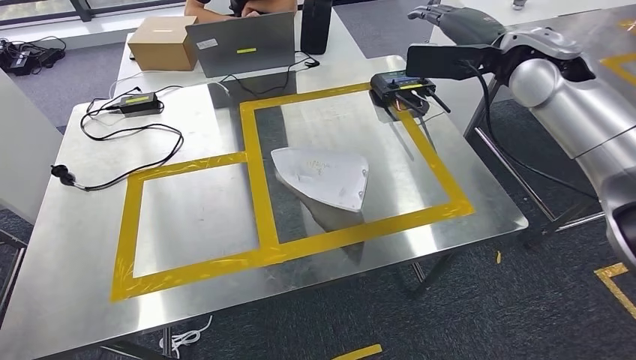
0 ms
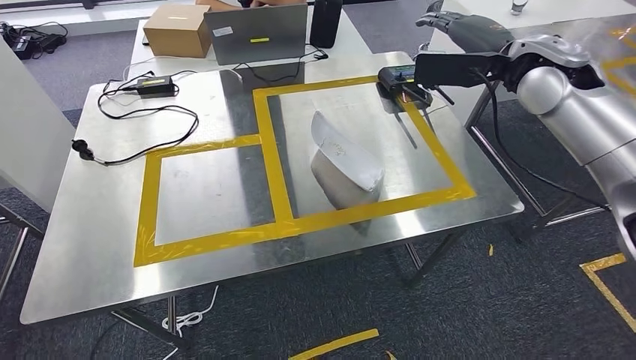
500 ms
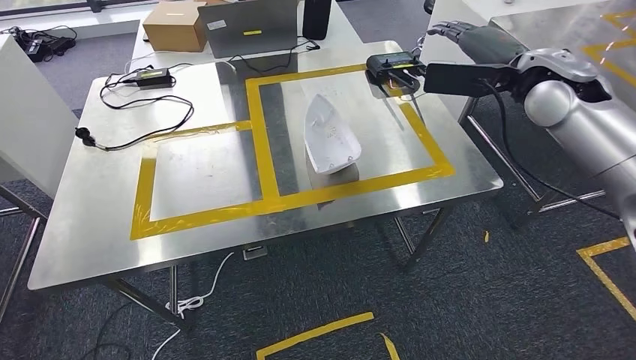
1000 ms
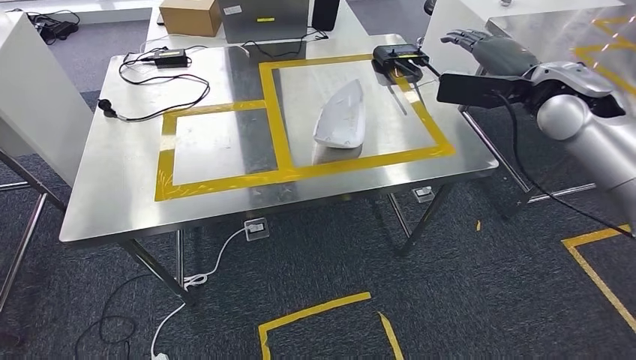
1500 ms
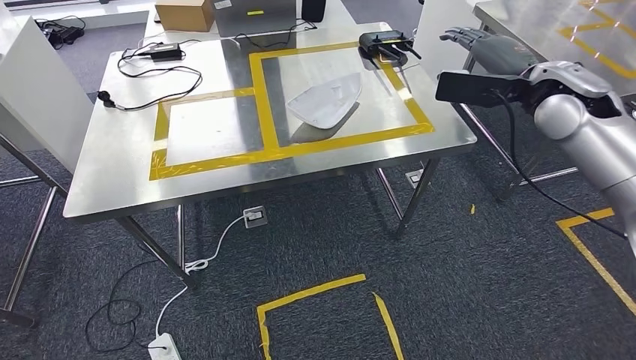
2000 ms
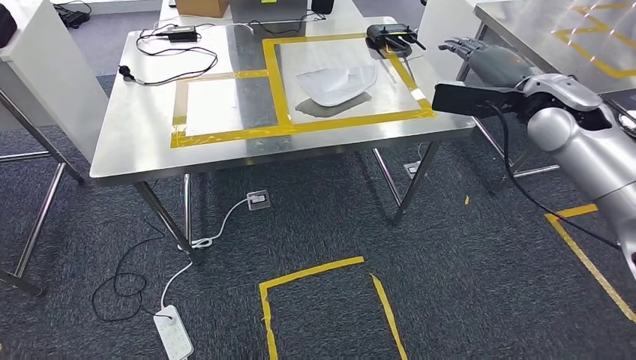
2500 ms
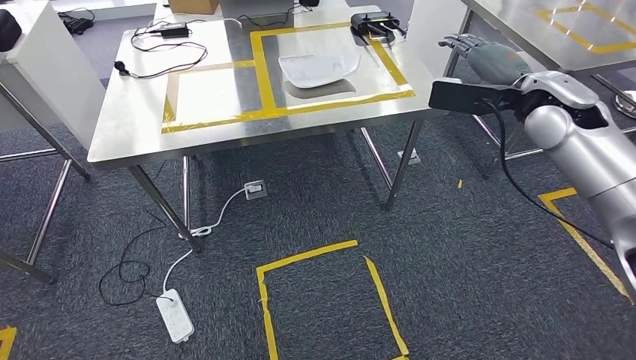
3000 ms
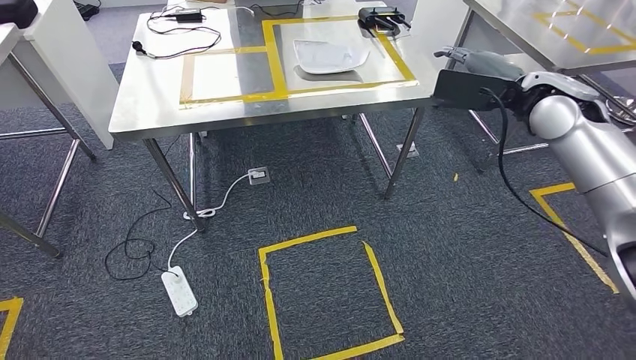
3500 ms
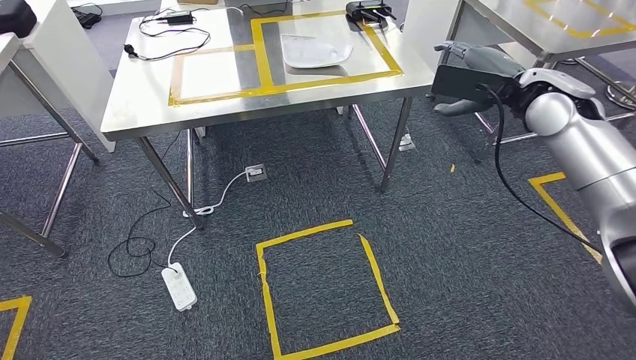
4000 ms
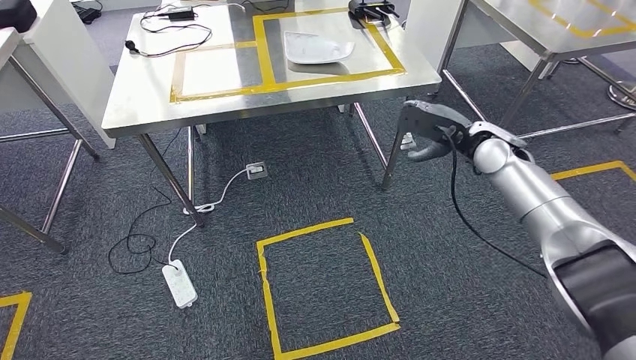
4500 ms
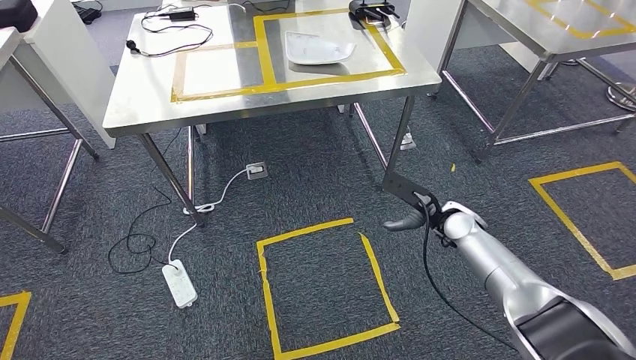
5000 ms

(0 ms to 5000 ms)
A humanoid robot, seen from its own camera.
Step, 500 ms - 5000 ms: Return to the initial position at the workbench.

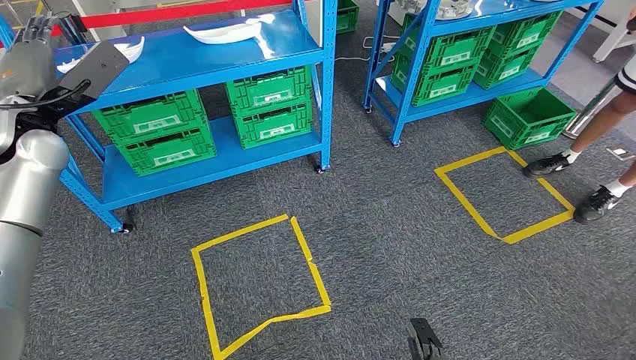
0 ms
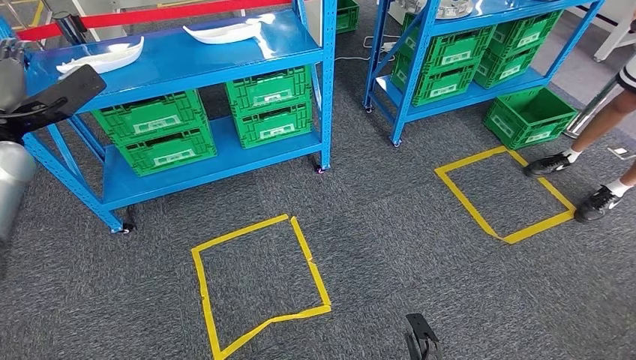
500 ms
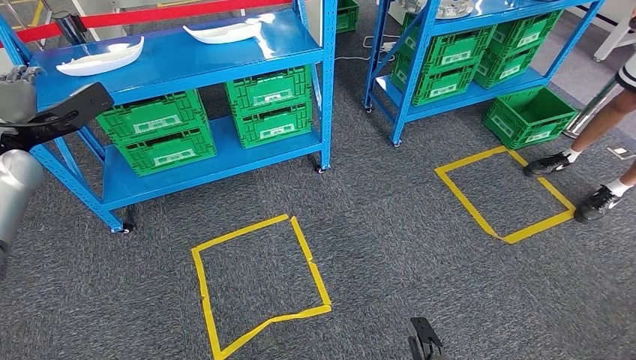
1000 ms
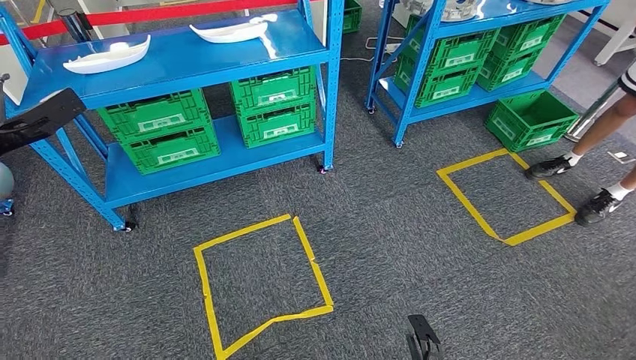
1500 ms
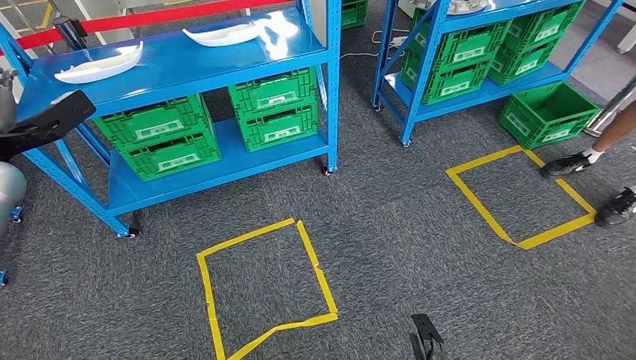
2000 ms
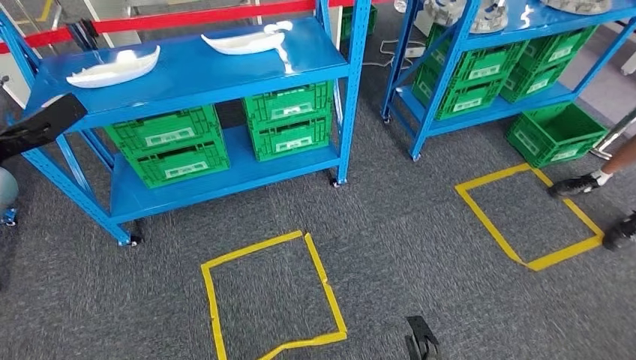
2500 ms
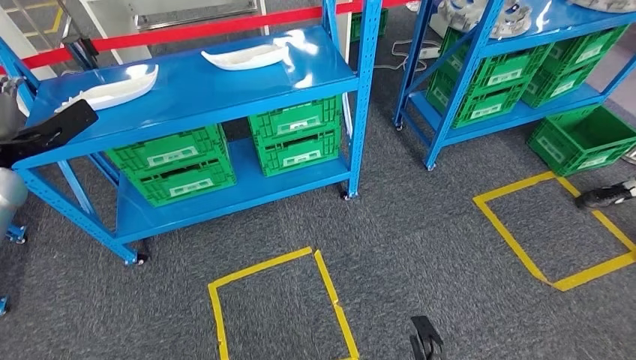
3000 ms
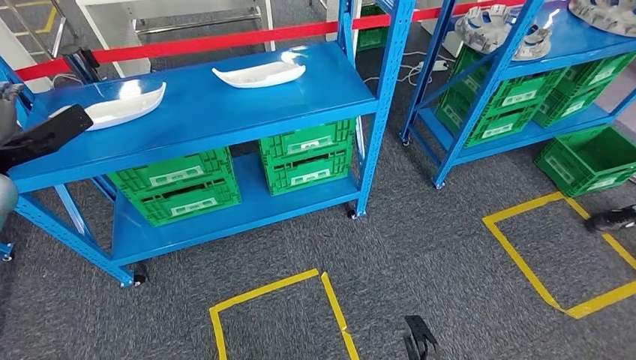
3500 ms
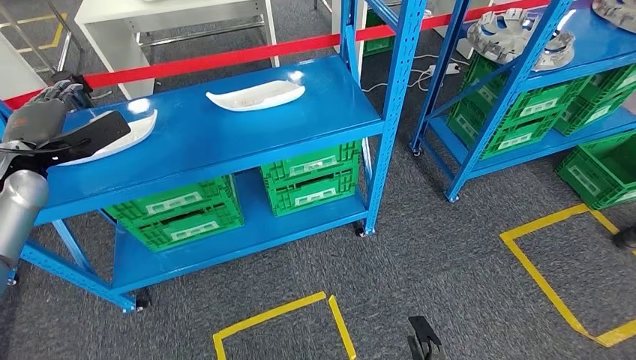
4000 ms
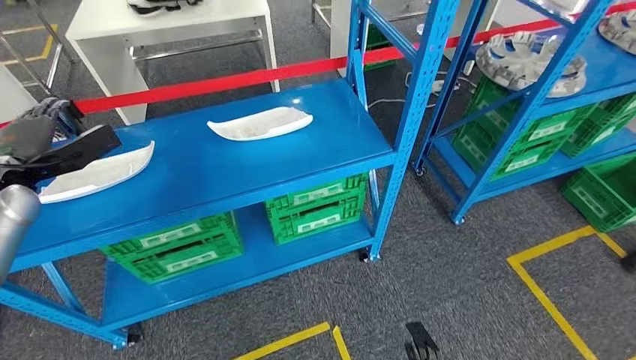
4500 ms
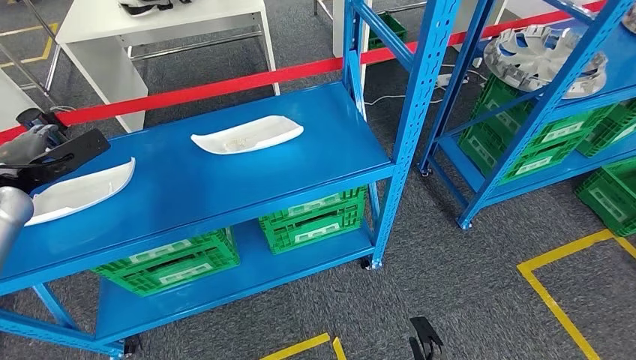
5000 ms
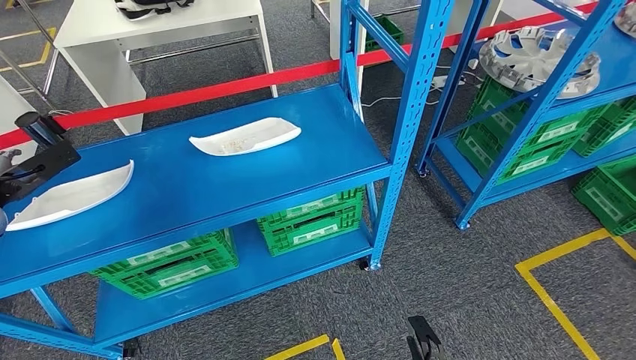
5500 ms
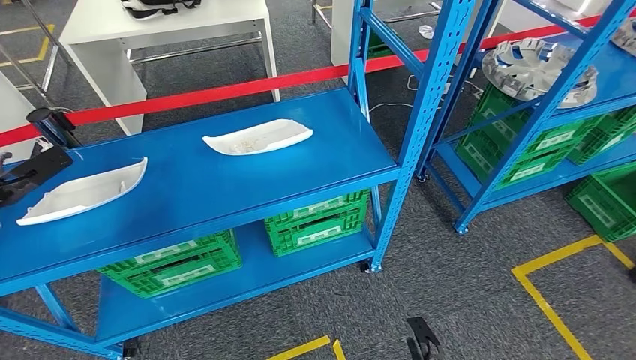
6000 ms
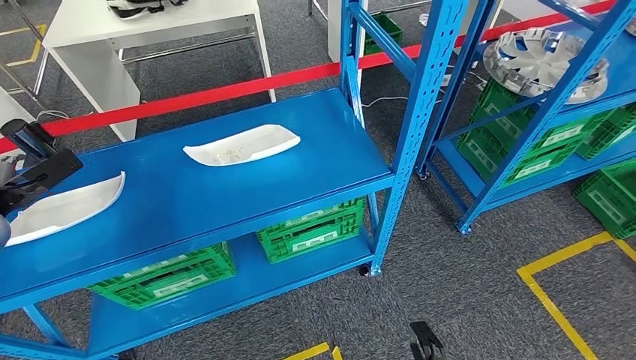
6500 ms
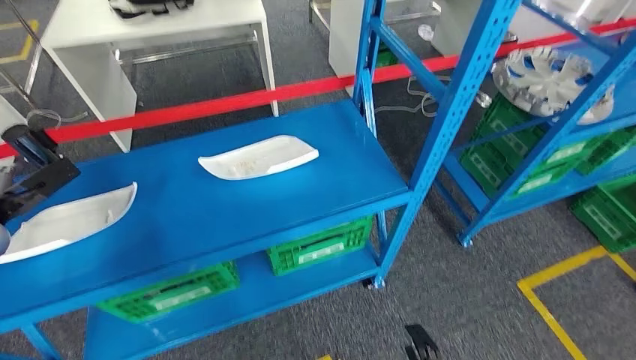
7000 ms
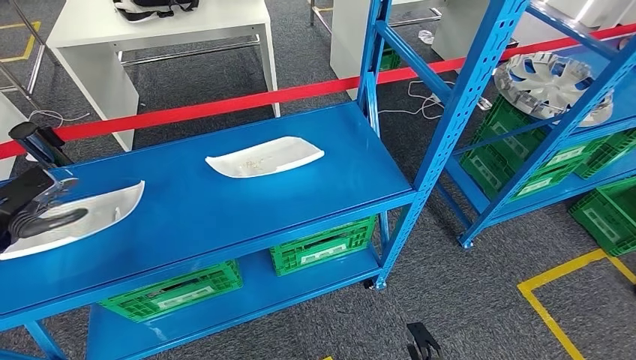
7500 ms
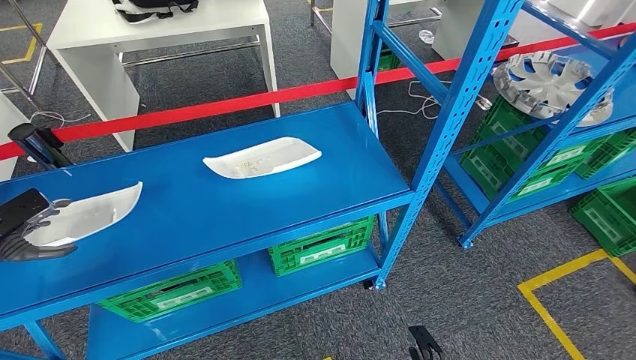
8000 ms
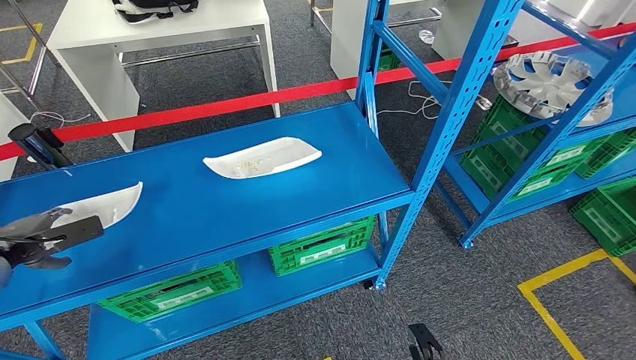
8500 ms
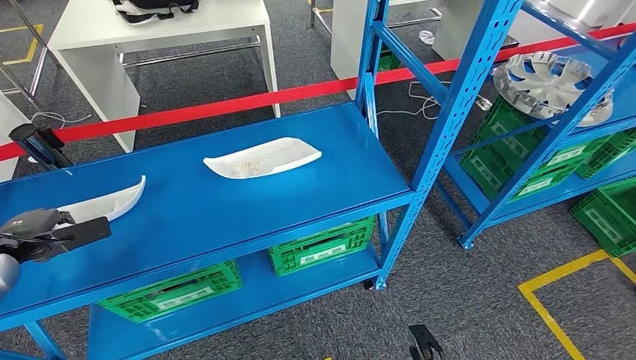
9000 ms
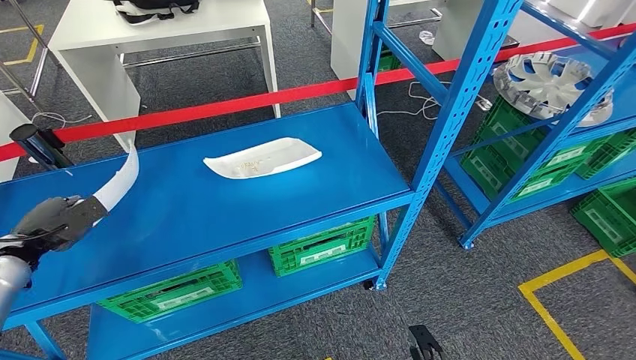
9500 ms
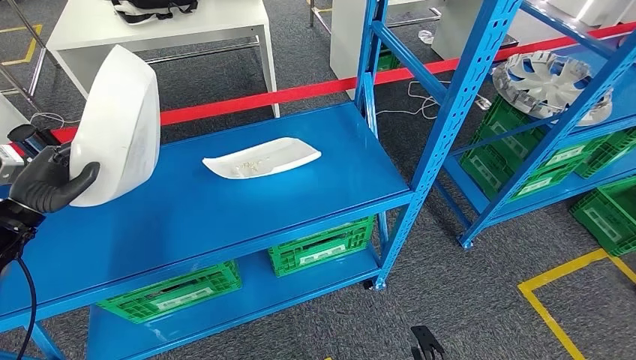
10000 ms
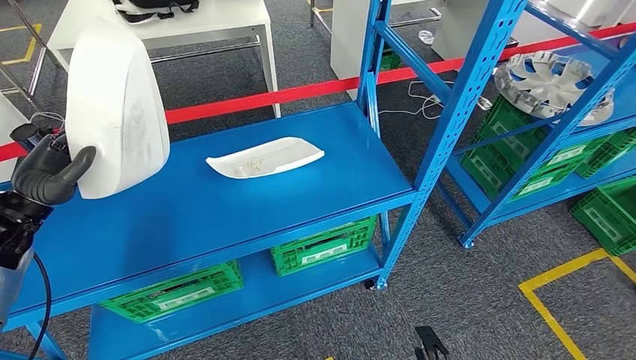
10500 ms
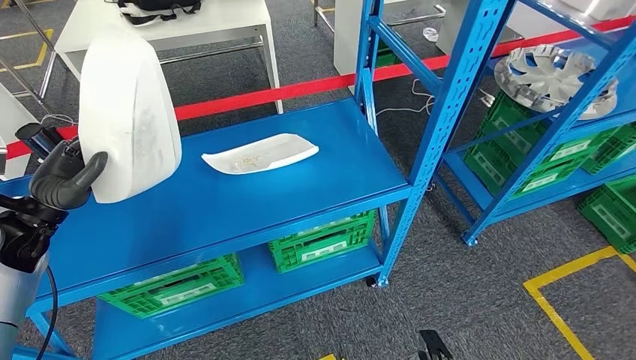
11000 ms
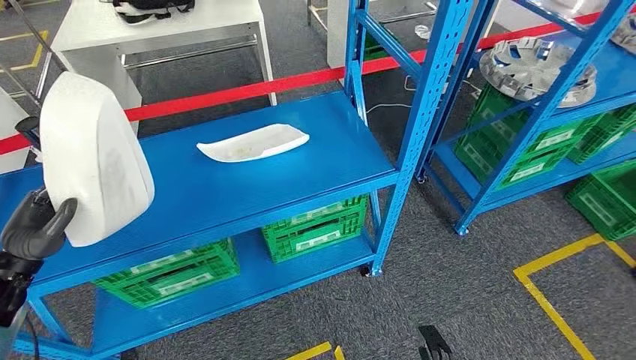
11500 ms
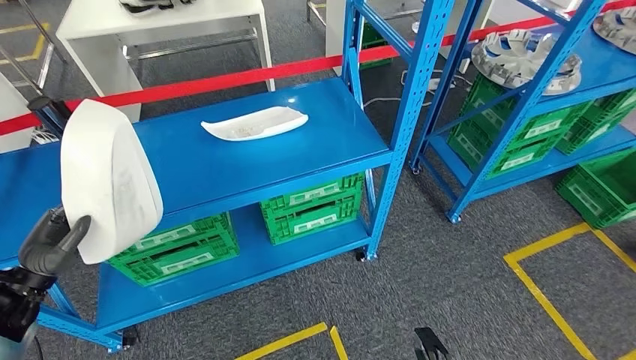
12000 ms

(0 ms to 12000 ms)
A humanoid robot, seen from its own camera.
Step, 0 ms - 10000 ms: Pick up the small parts from the shelf.
8000 ms - 10000 ms: The left hand travels to the right by about 10 cm.

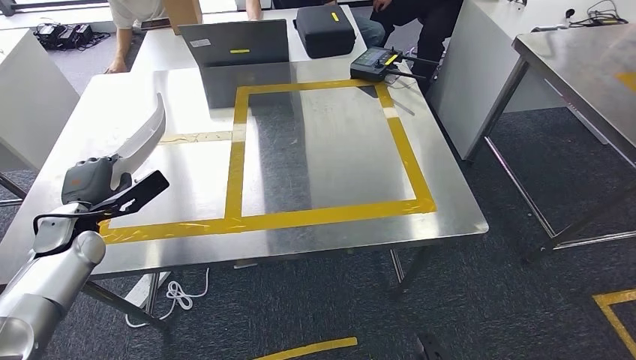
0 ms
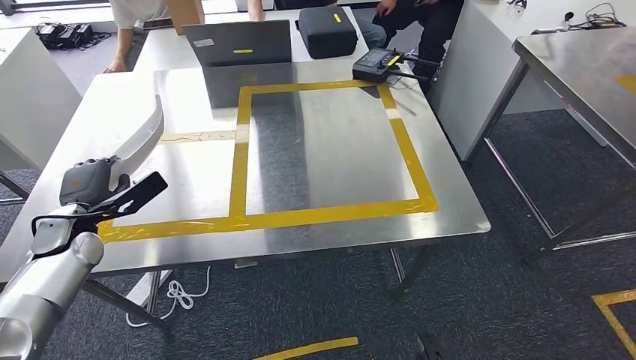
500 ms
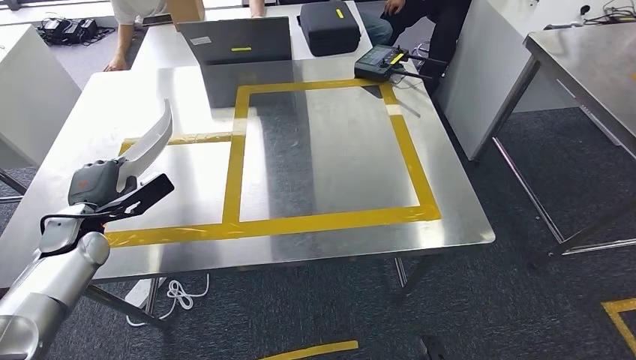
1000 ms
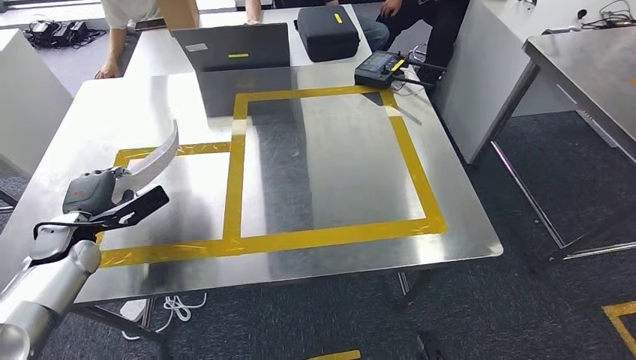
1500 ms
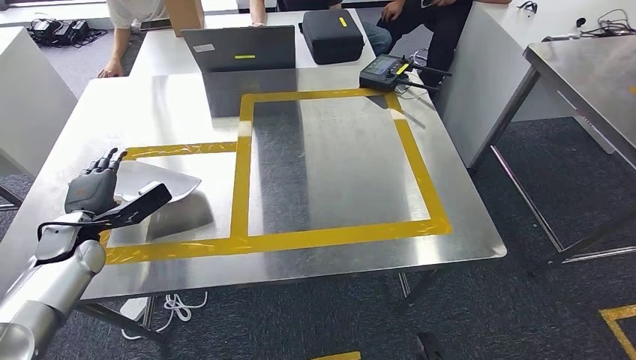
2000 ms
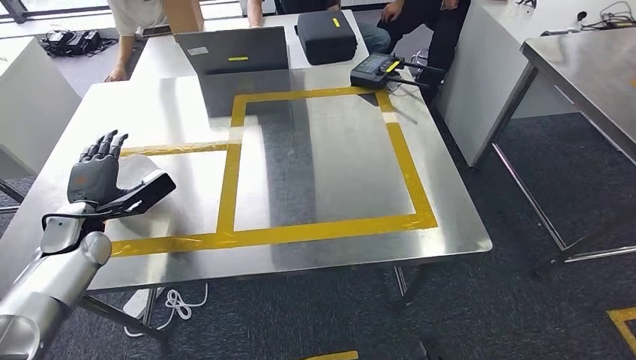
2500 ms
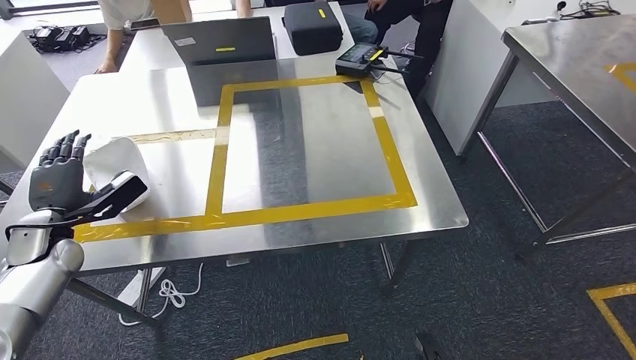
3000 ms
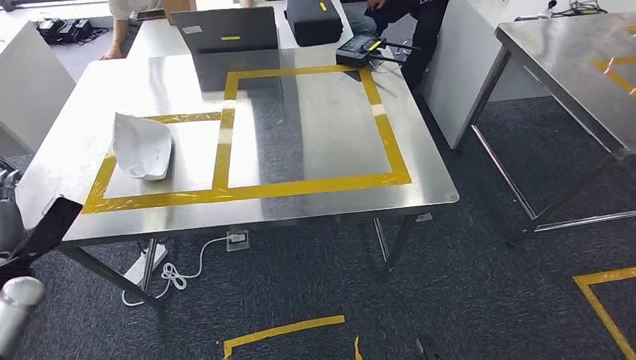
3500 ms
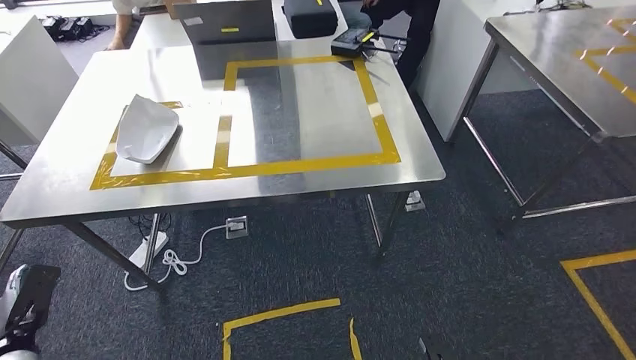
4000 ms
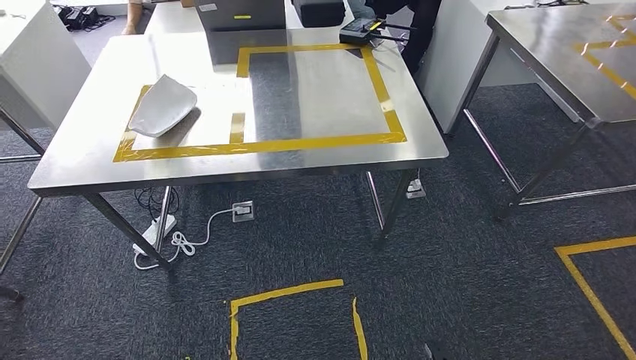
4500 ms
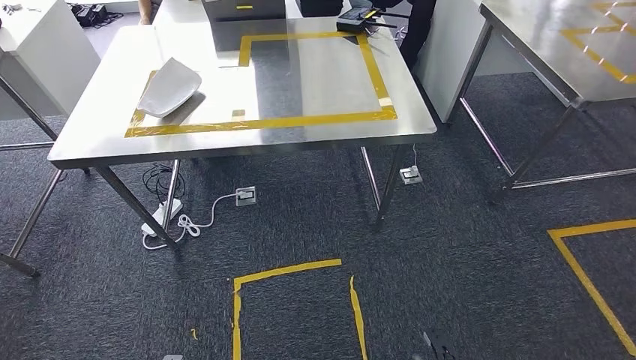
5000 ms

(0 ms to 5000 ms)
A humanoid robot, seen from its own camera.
Step, 0 ms - 2000 ms: Insert the small parts into the corresponding slots on the workbench.
Step, 2500 ms - 5000 ms: Return to the initial position at the workbench.
